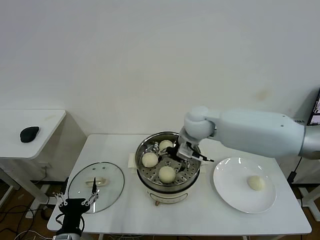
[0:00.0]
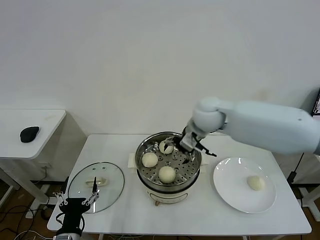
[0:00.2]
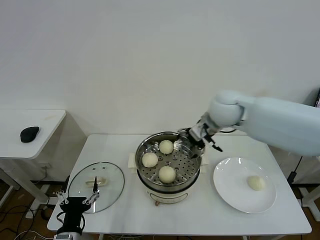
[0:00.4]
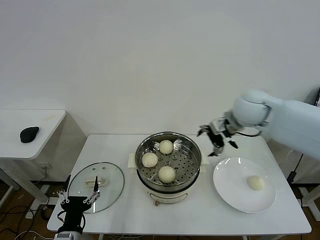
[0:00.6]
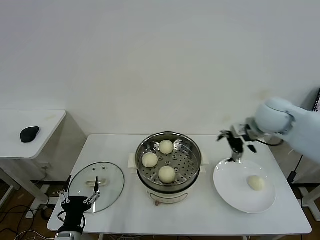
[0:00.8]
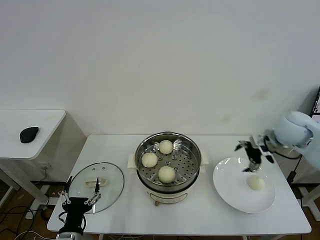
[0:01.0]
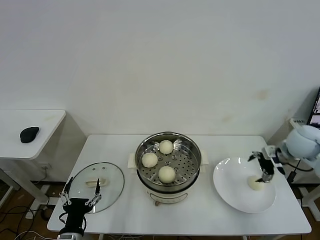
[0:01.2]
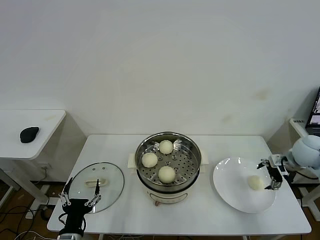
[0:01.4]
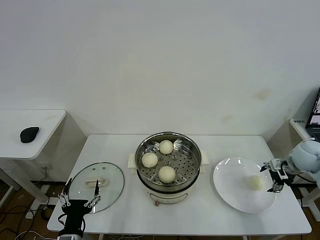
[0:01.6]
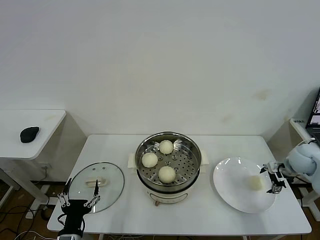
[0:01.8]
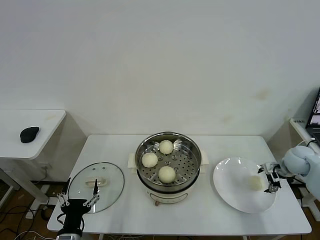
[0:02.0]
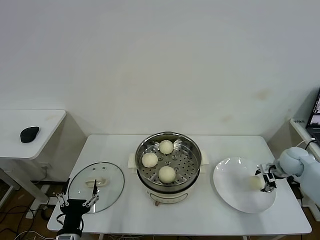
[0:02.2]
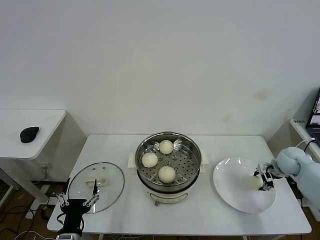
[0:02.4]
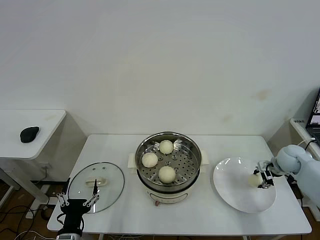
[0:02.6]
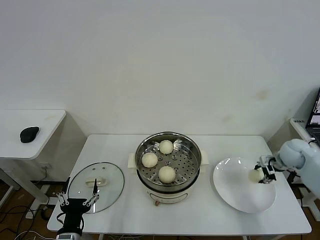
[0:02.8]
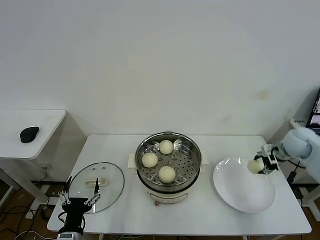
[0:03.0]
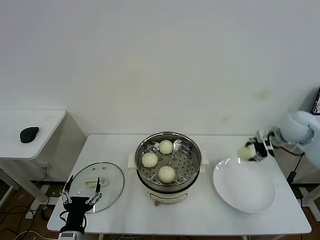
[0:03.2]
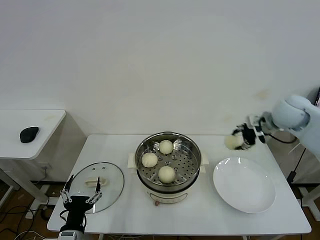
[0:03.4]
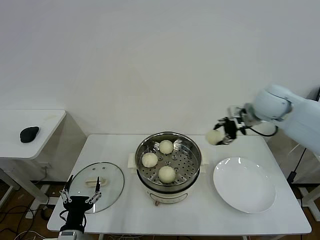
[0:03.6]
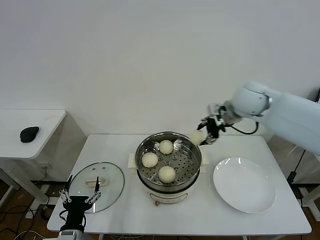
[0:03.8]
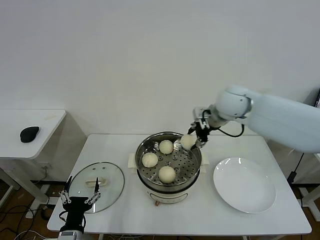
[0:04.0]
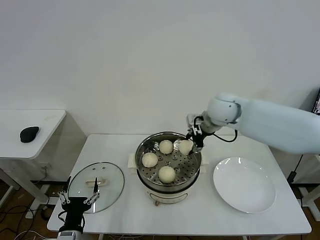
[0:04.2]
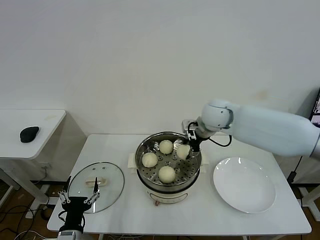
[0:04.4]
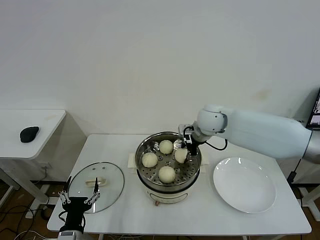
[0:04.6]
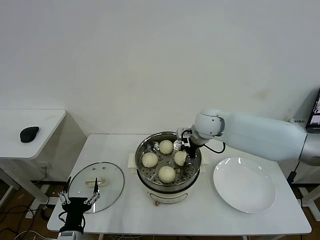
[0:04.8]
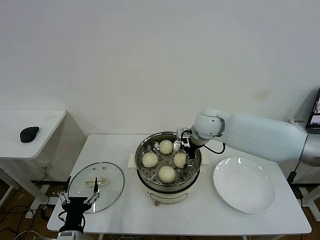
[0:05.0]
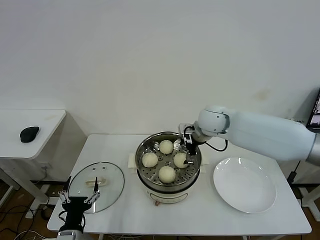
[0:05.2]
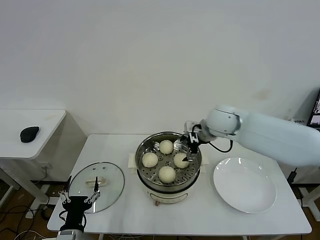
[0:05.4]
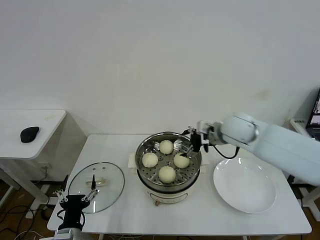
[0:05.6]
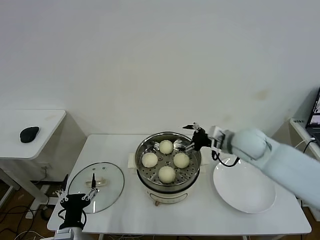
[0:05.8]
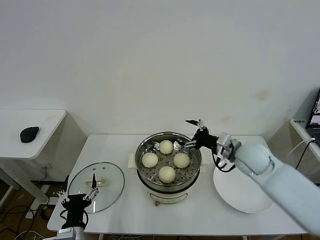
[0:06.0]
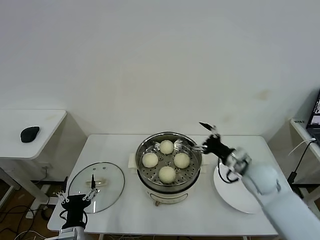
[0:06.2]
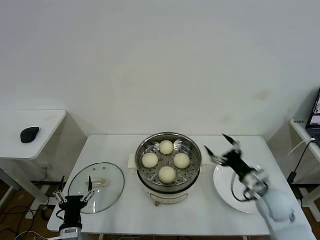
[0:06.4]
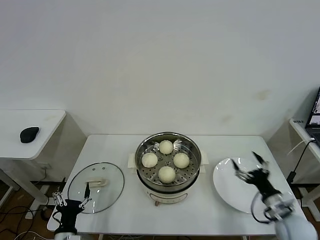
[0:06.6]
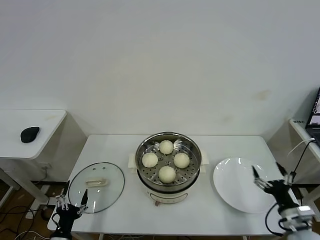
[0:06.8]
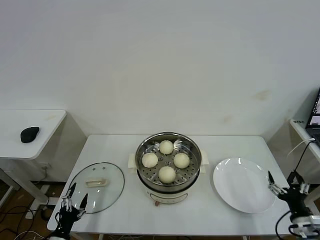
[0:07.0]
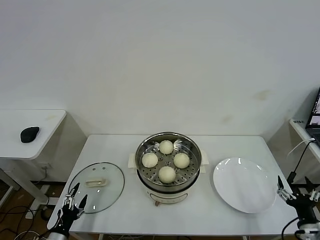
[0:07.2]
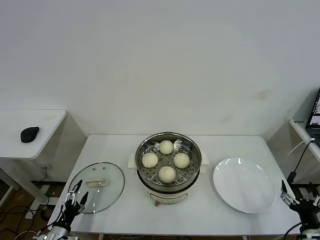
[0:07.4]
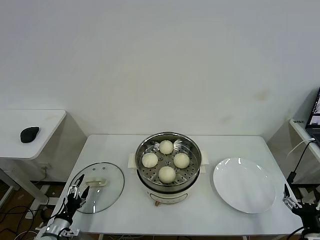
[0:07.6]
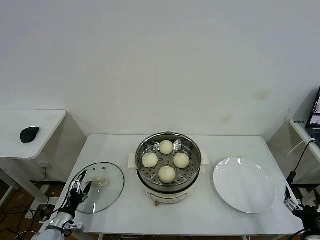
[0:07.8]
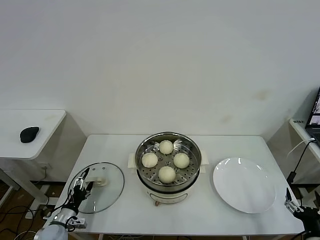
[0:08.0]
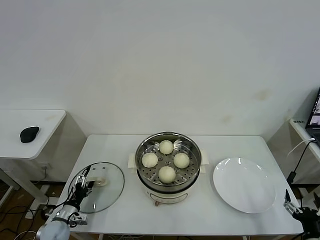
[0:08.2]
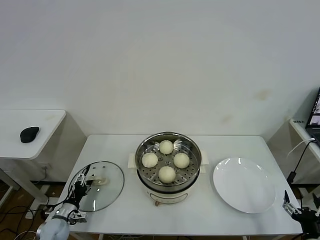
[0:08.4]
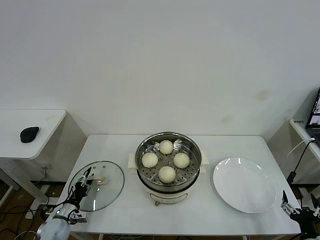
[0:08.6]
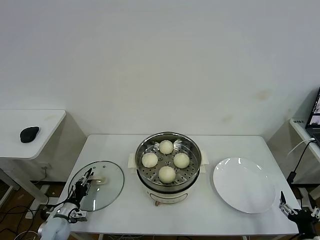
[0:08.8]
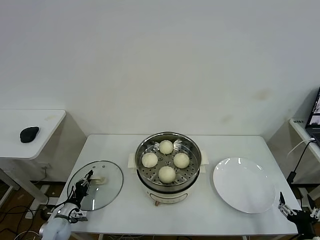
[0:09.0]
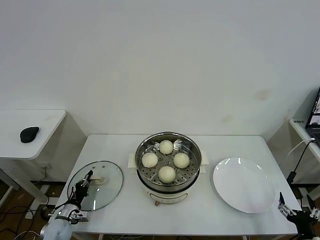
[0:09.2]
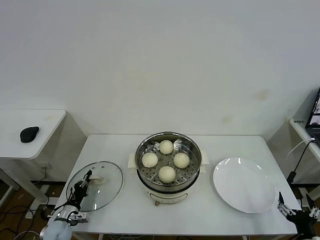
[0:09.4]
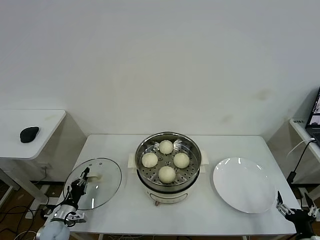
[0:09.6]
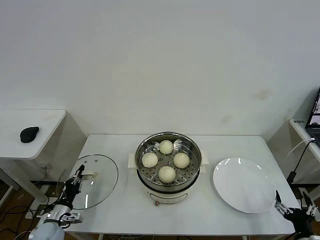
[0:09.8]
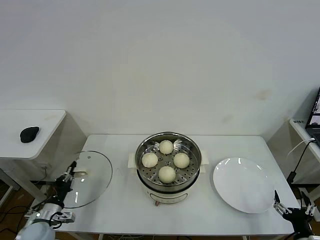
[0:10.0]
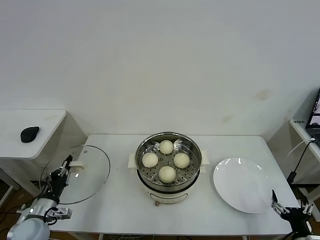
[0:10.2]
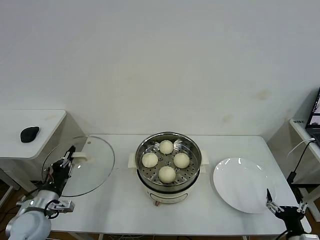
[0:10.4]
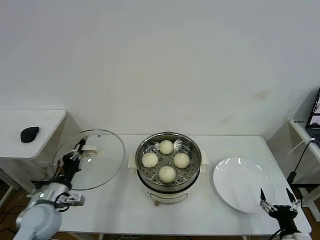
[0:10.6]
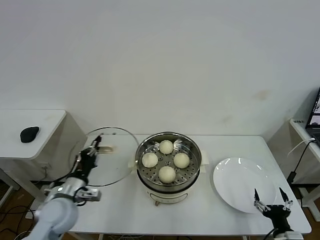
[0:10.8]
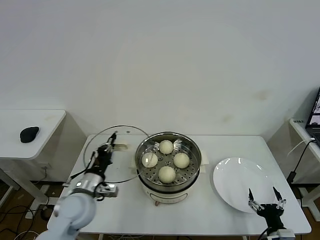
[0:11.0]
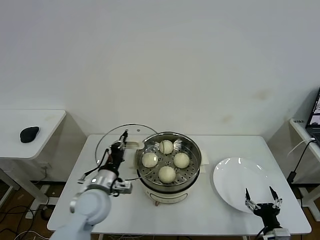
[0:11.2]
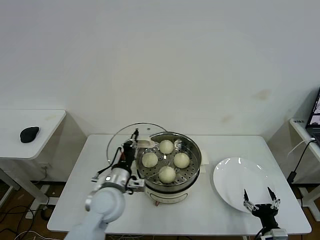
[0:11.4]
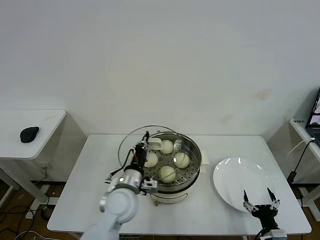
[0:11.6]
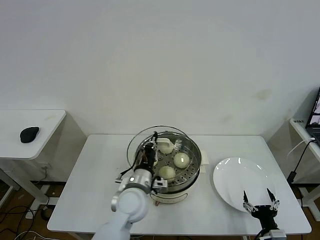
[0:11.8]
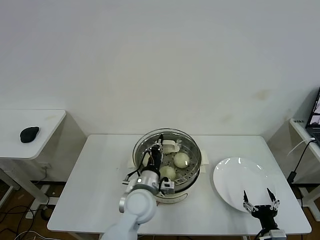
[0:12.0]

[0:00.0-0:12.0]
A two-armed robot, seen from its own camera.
Task of the whole recording: take steamed baozi put them in steamer then cover it.
Step, 0:00.0 to 0:02.6: Grasp the baozi in the plate with right gripper.
Step, 0:03.0 to 0:05.0: Place the baozi on the steamer with right gripper.
Step, 0:05.2 to 0:09.2: Grasp the pot lid with left gripper.
0:00.0 to 0:01.6: The right gripper shifts about 35 cm to the right.
0:01.6 to 0:03.0: The right gripper moves roughly 5 cm, and closes up.
0:03.0 to 0:04.4: The right gripper moves to the left, about 30 cm.
0:04.4 to 0:06.0: The right gripper shifts roughly 15 cm backward, to the right and downward, and opens.
0:06.0 to 0:07.6: The left gripper heads to the left and downward, covering roughly 20 cm, while the right gripper goes some 35 cm backward, to the right and downward.
0:07.6 to 0:09.0: The left gripper moves forward, roughly 10 cm, and closes.
0:09.0 to 0:10.4: The left gripper travels upward by about 20 cm.
0:10.4 to 0:12.0: The right gripper ends up some 5 cm from where it was. The left gripper moves to the right, some 30 cm.

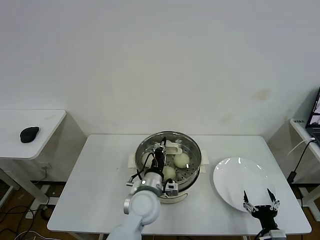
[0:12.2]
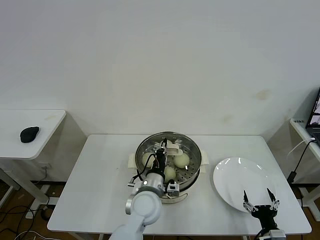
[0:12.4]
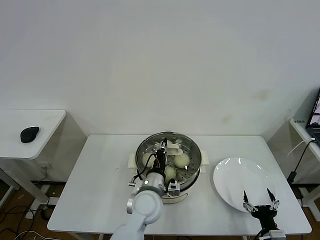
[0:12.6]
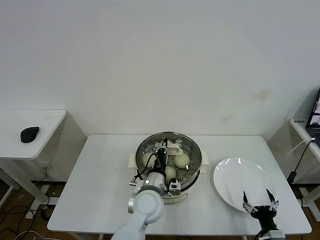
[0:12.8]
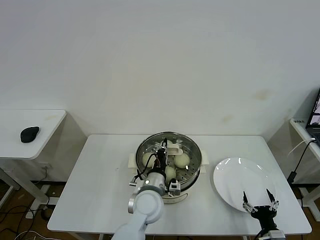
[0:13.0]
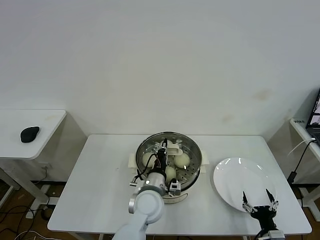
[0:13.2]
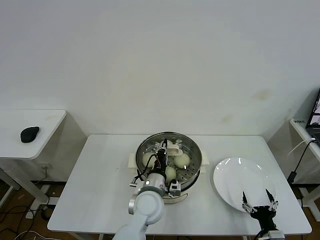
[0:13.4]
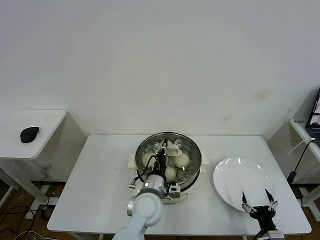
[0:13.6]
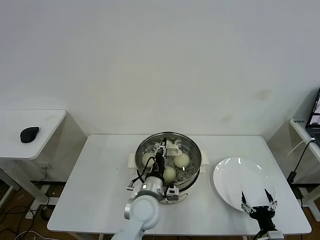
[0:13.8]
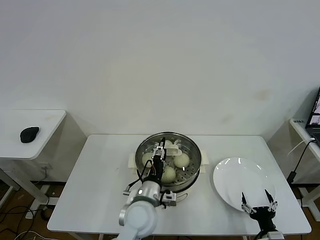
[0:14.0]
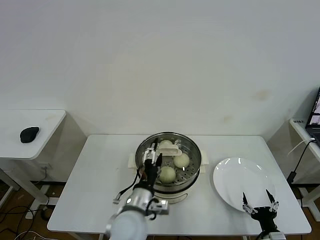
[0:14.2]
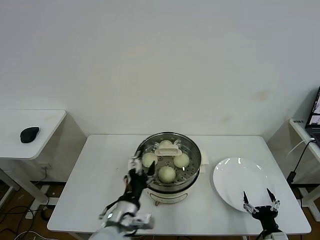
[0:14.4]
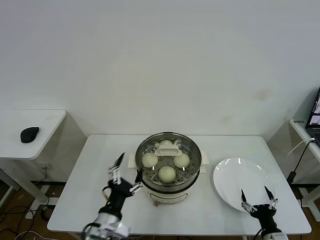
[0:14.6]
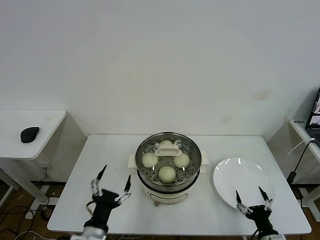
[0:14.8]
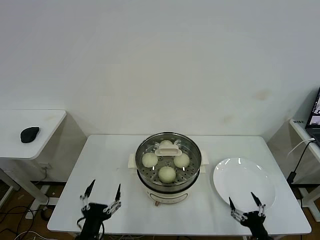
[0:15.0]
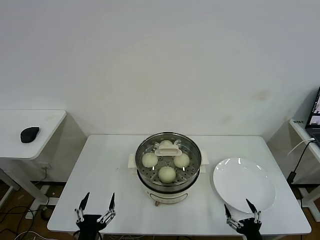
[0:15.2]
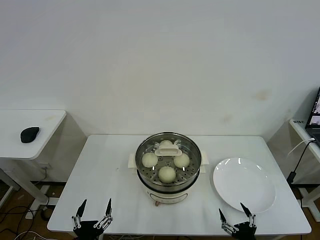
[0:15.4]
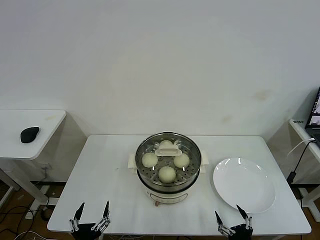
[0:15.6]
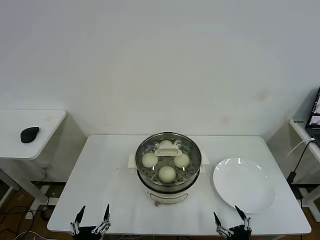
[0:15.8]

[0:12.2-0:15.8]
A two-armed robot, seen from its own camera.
Task of the whole recording: take steamed baozi put them in steamer then cover it.
0:12.2 to 0:14.0: The left gripper opens its fingers.
0:14.0 to 0:15.8: The right gripper is displaced backward and to the left by roughly 10 cm. Meanwhile the left gripper moves backward and to the left, about 30 cm, and opens.

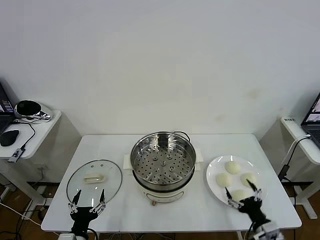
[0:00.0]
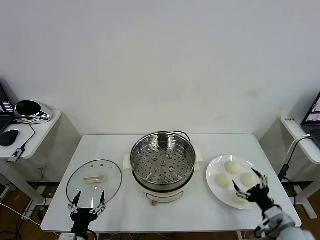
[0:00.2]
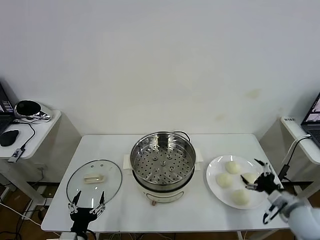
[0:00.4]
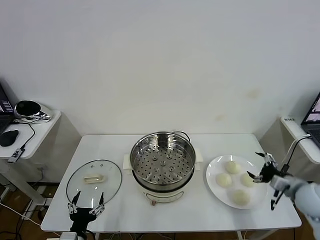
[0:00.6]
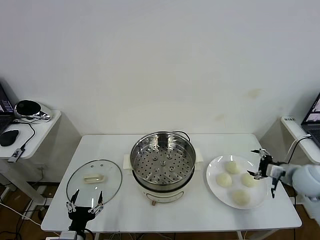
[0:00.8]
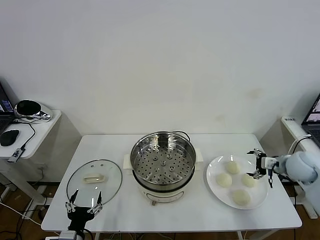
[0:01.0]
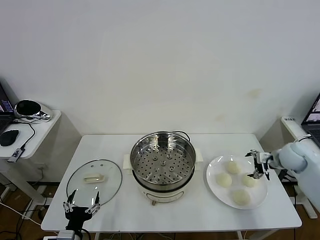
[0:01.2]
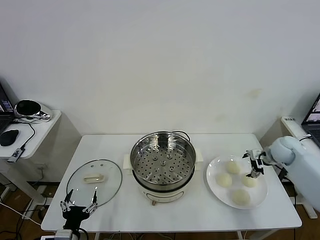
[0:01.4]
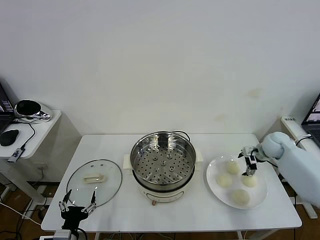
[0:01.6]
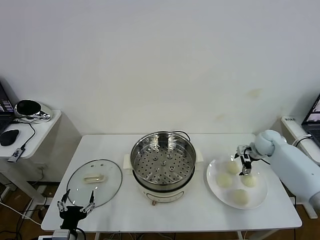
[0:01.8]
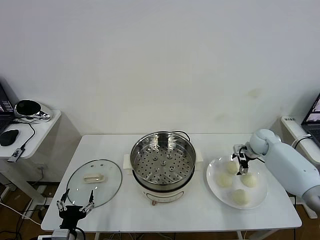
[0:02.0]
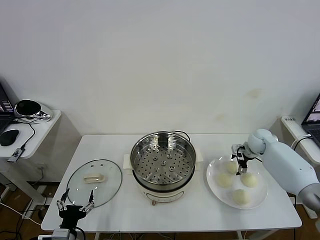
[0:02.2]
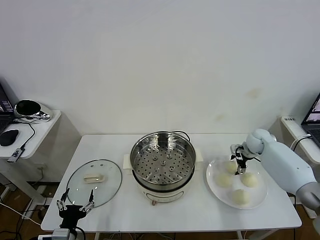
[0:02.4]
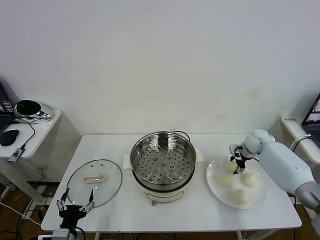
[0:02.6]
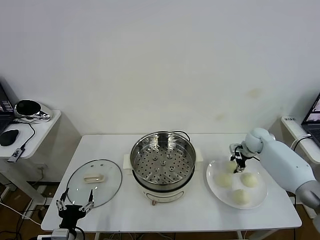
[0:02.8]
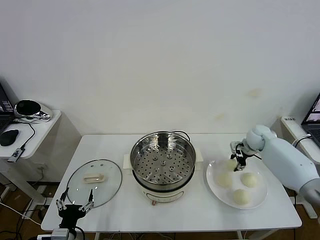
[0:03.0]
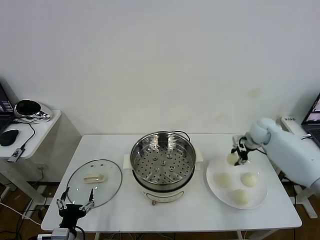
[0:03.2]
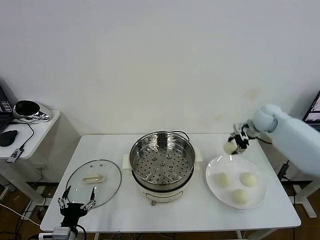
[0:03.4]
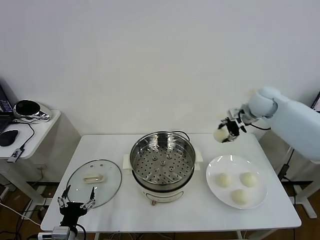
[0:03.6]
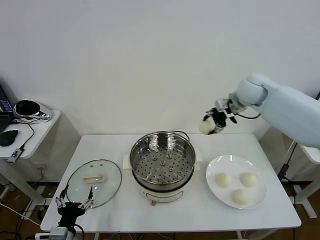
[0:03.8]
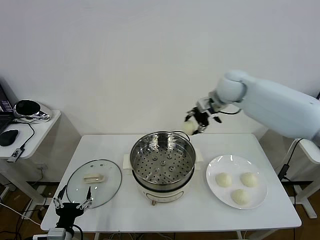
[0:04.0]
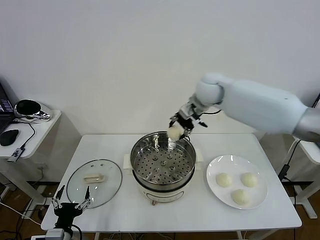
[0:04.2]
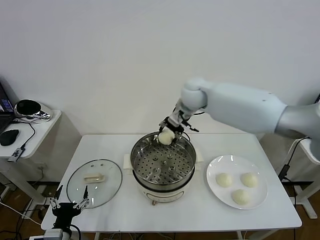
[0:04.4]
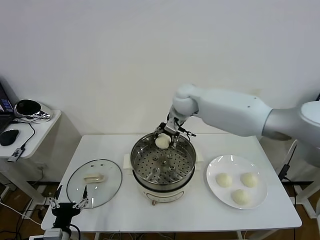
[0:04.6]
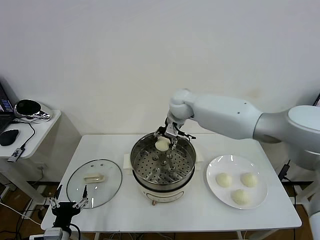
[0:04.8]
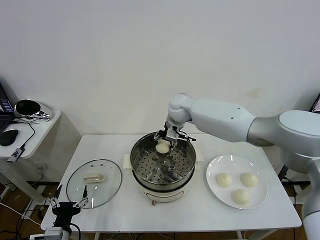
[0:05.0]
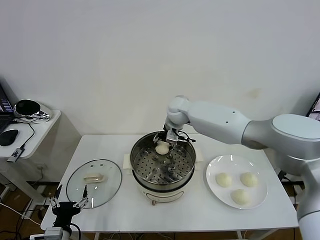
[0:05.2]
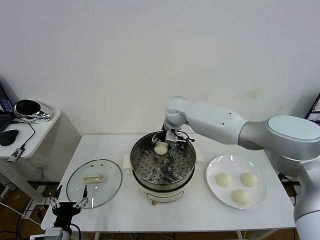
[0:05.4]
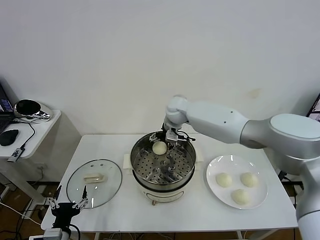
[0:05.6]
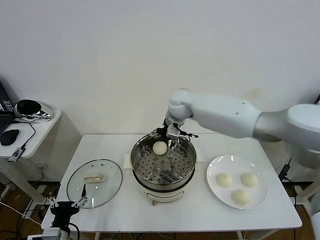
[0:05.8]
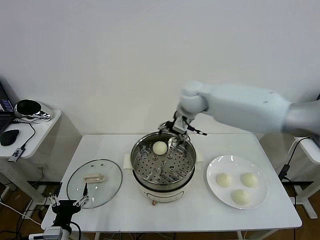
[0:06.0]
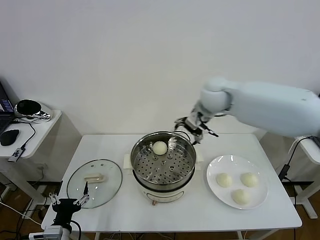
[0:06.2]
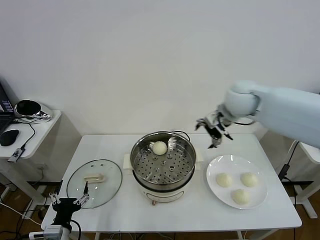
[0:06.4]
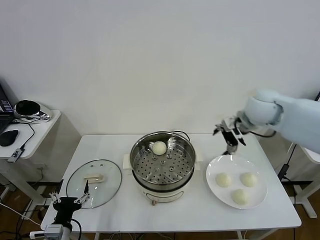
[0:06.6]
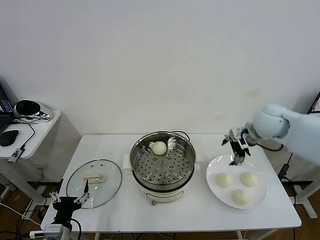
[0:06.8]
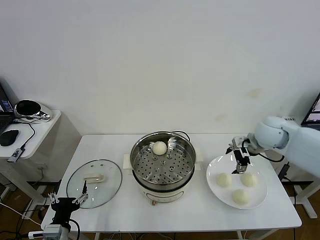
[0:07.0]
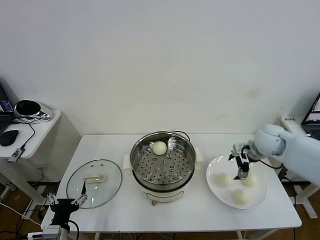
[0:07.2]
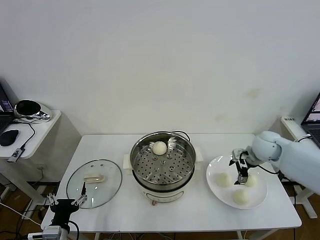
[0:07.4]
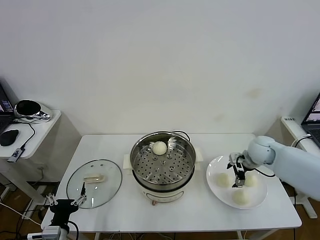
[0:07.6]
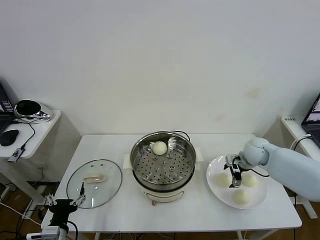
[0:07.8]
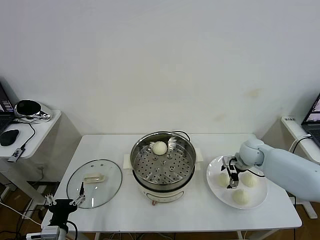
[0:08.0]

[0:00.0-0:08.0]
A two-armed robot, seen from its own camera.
Task of the whole recording: take steamed baozi put them in steamer then cover it.
Step, 0:00.0 to 0:02.6: Grasp the baozi in the plate with right gripper.
Step, 0:03.0 to 0:05.6: Place the baozi on the steamer with right gripper.
0:01.6 to 0:03.2: The right gripper heads upward, covering approximately 10 cm, and closes.
0:03.2 to 0:04.8: The right gripper shifts about 30 cm to the left.
0:04.8 to 0:06.4: The right gripper heads to the right and backward, covering about 25 cm, and opens.
0:06.4 to 0:08.0: The right gripper moves downward, some 25 cm.
